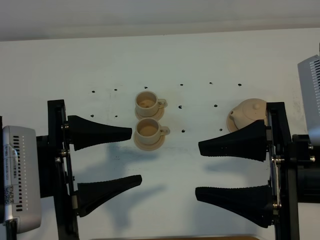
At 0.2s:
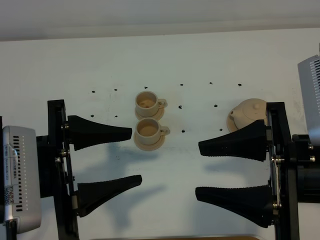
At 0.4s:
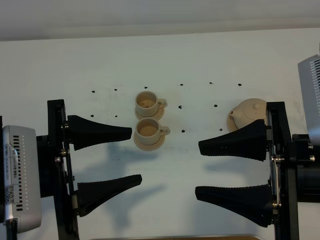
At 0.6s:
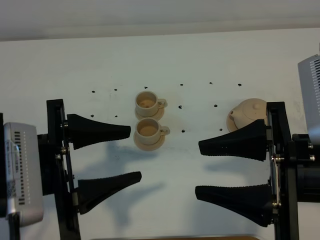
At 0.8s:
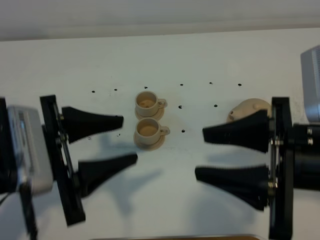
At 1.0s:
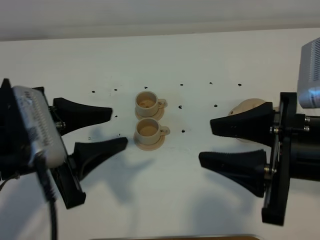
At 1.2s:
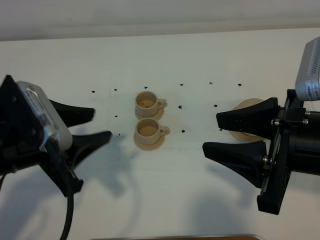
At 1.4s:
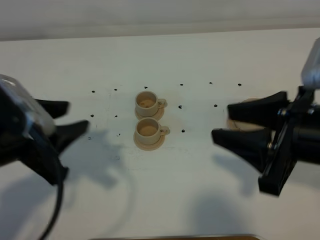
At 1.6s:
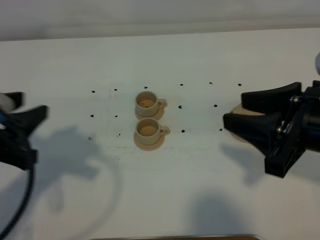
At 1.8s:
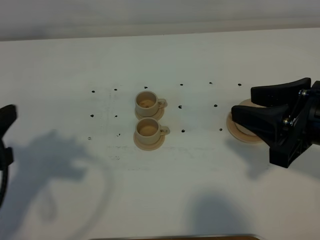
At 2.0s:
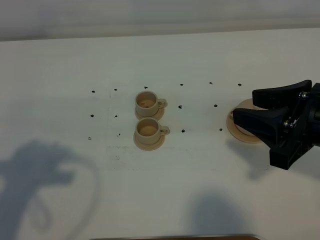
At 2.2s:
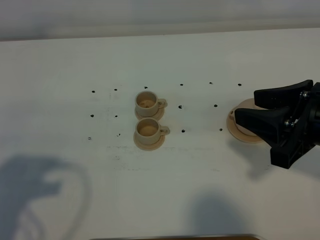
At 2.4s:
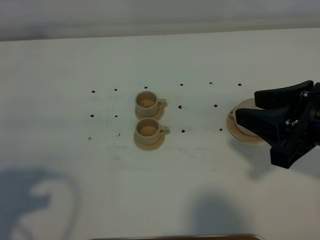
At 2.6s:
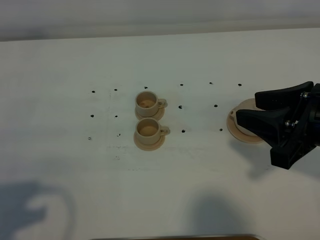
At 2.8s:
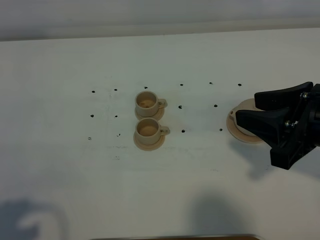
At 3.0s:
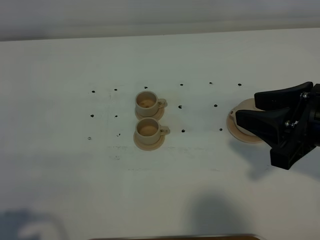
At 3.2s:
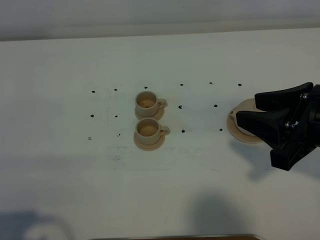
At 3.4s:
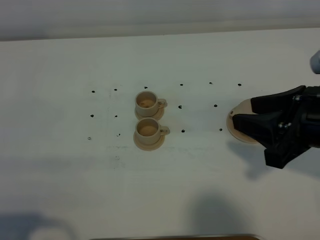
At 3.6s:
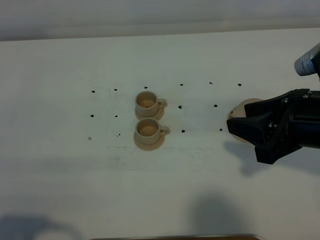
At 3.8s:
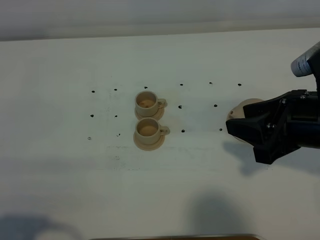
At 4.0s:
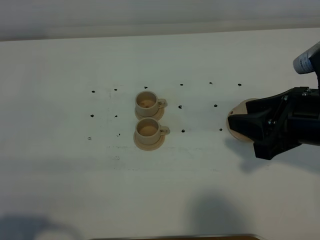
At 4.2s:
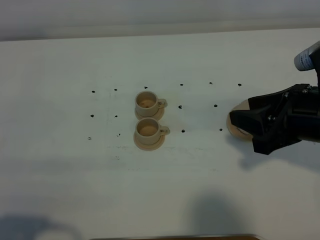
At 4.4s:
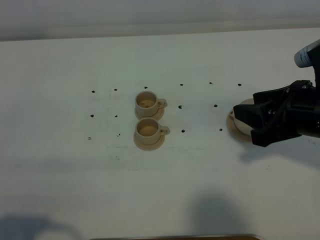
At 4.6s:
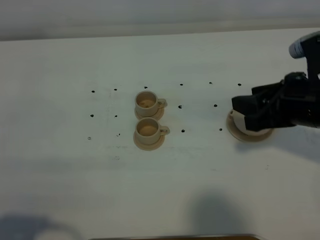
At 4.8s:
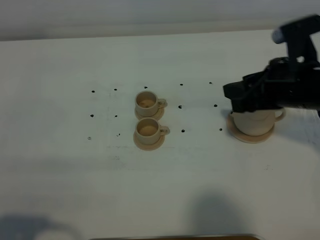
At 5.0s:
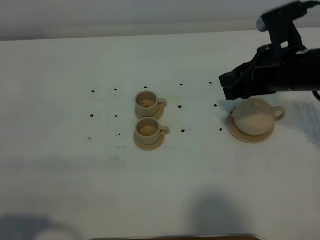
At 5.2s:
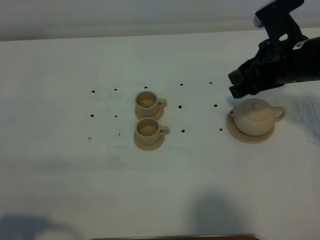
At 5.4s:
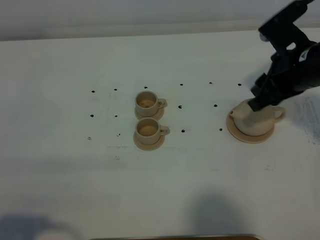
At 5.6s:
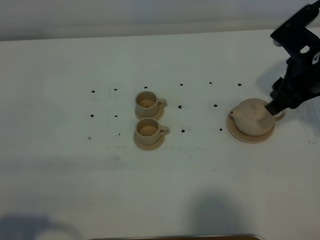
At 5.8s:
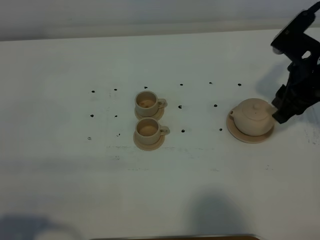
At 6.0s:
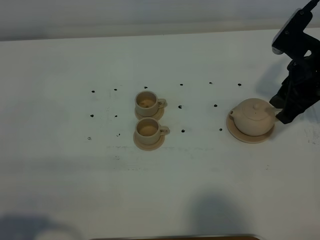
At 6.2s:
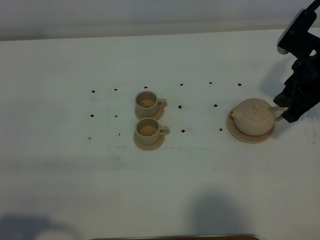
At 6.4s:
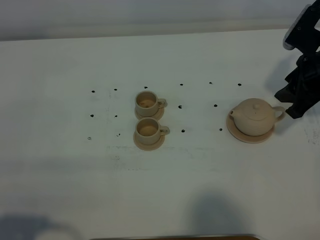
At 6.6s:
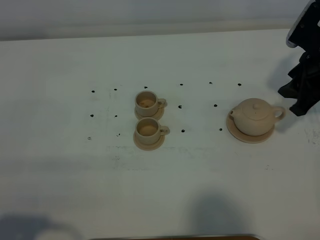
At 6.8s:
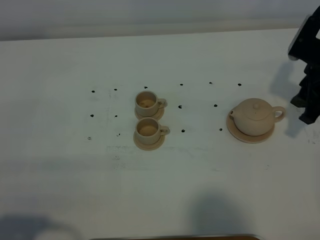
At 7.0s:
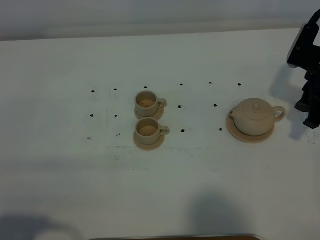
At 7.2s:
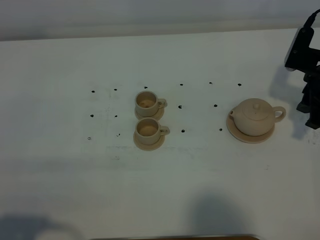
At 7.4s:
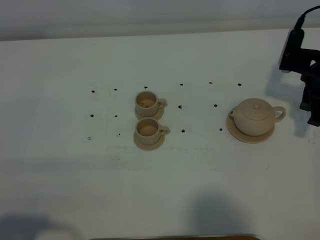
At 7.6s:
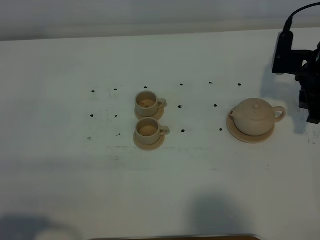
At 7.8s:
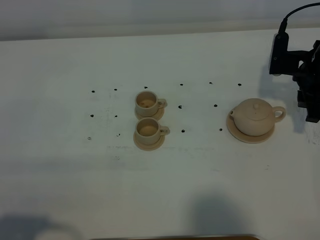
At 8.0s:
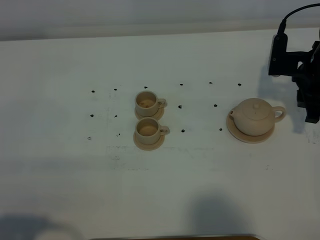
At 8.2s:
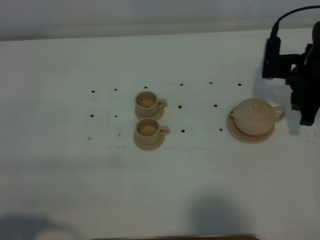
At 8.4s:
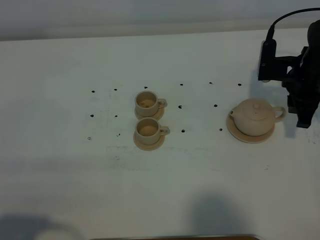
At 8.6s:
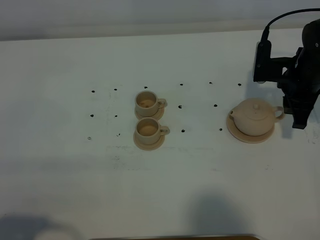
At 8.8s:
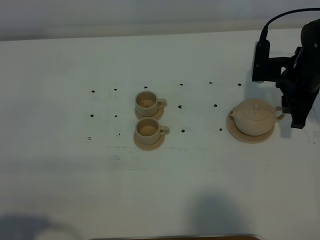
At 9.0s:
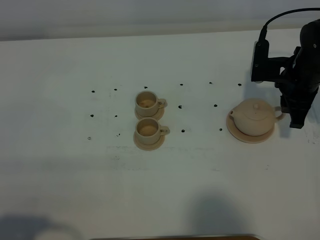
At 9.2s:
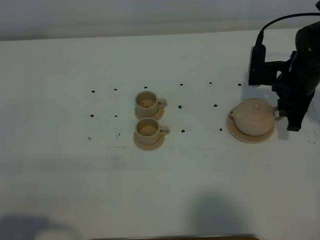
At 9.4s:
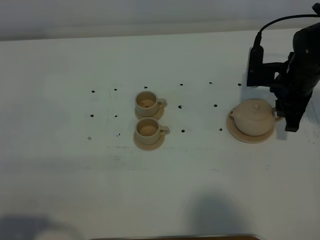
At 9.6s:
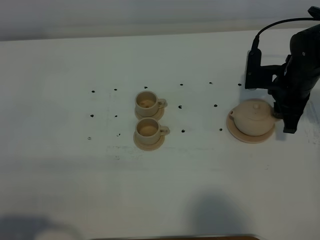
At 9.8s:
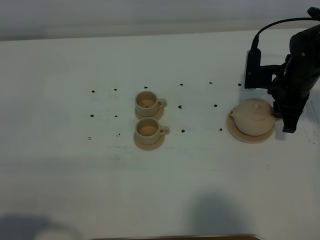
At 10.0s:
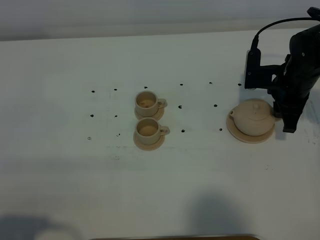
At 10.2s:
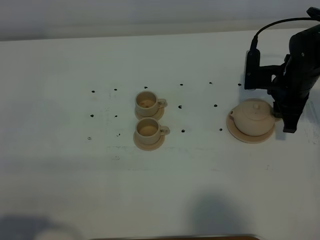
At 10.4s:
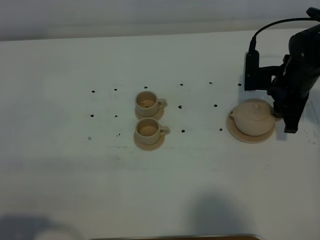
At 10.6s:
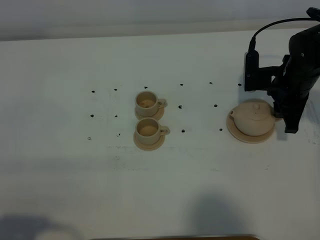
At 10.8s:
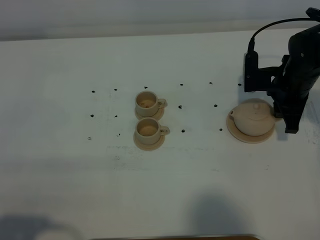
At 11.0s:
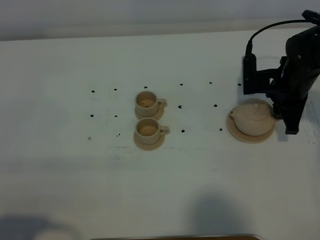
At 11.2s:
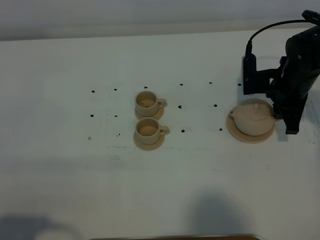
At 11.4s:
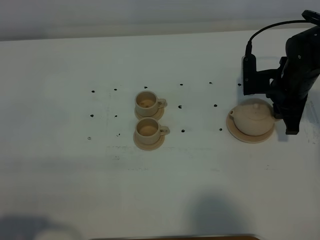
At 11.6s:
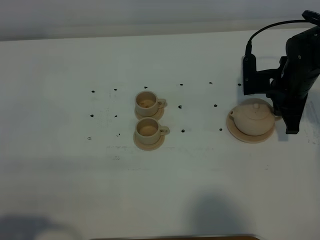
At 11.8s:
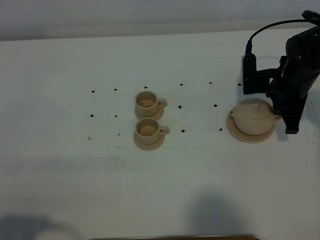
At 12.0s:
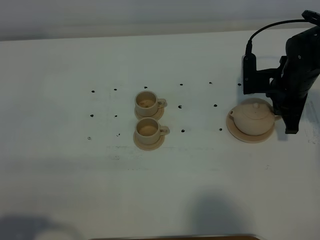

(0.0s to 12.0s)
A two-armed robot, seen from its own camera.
Task of the whole recording: grasp the brown teapot and pour the tea into the two brown teacups one by one, put the brown teapot back in its original place.
0.0s - 1.6s: The right gripper ends up about 5 cm from where it was; the left gripper shifts about 10 cm to the left.
1.6s - 3.0s: The left gripper moves backward, roughly 15 cm.
3.0s - 4.4s: The right gripper moves approximately 5 cm.
4.4s - 6.0s: The right gripper shifts approximately 10 cm forward.
6.0s - 7.6s: The right gripper goes approximately 5 cm forward and downward.
7.6s - 10.4s: The grippers make only small movements.
10.4s - 12.0s: The right gripper closes its fingers.

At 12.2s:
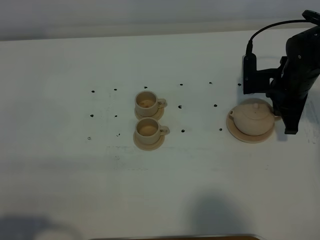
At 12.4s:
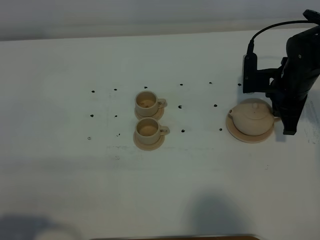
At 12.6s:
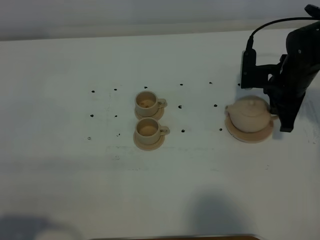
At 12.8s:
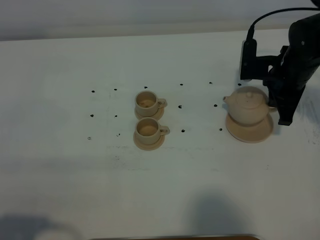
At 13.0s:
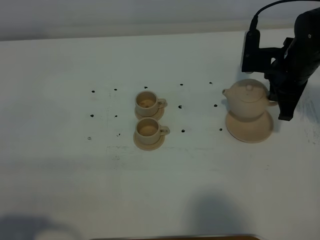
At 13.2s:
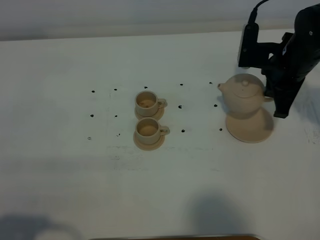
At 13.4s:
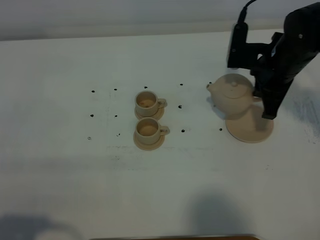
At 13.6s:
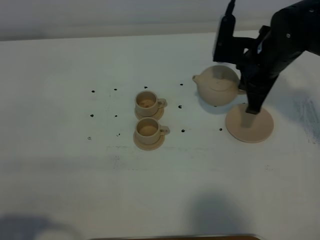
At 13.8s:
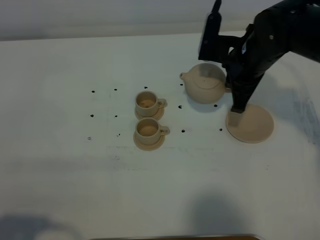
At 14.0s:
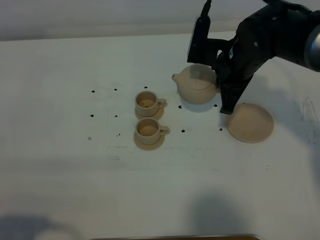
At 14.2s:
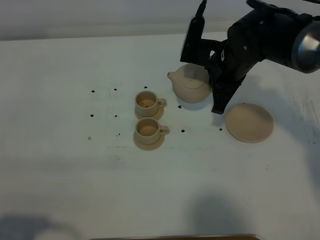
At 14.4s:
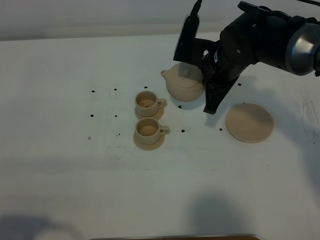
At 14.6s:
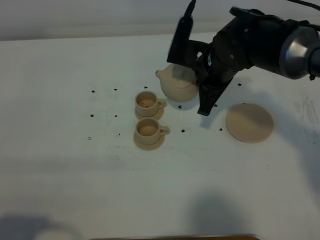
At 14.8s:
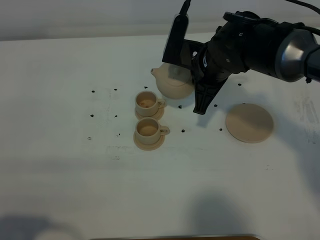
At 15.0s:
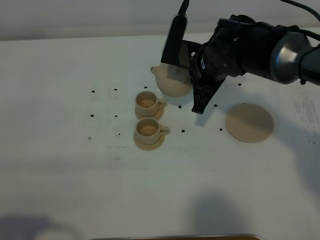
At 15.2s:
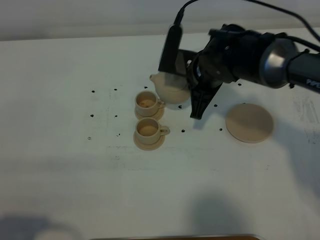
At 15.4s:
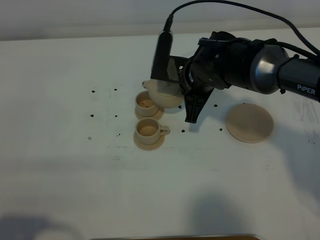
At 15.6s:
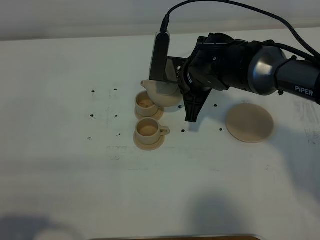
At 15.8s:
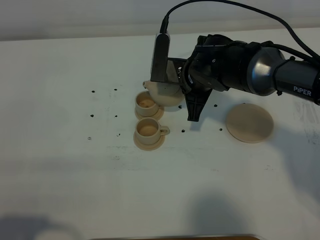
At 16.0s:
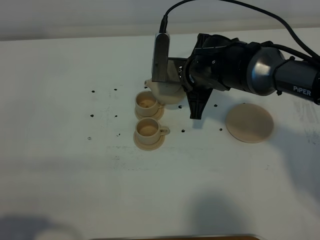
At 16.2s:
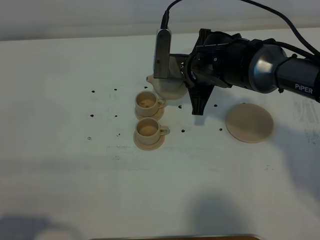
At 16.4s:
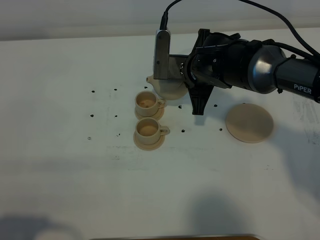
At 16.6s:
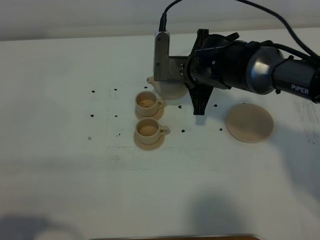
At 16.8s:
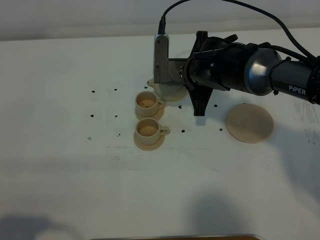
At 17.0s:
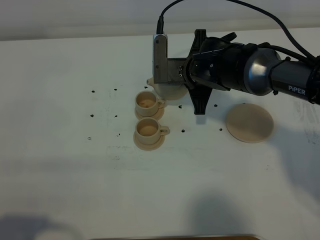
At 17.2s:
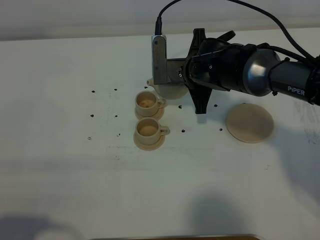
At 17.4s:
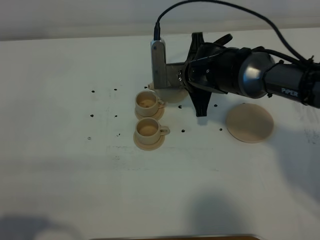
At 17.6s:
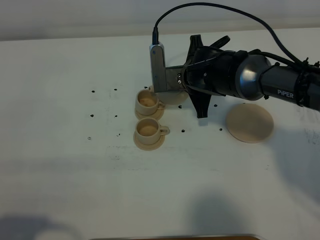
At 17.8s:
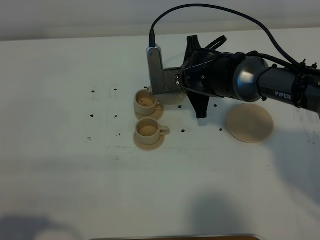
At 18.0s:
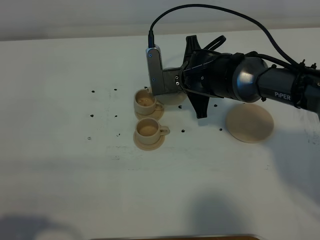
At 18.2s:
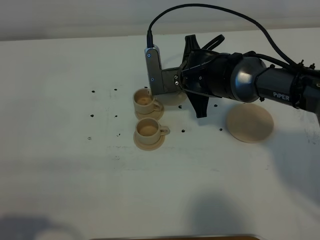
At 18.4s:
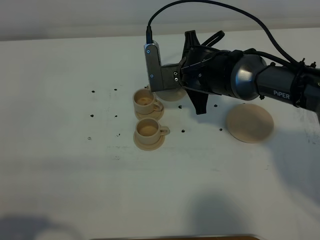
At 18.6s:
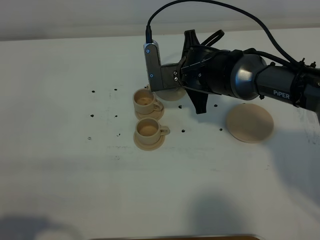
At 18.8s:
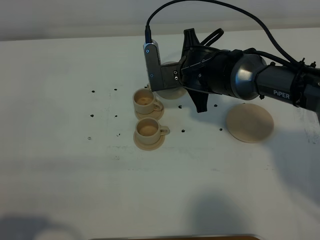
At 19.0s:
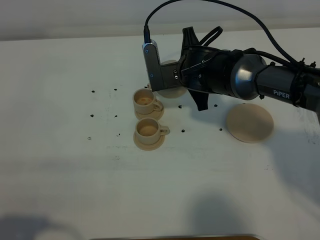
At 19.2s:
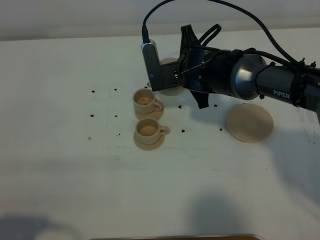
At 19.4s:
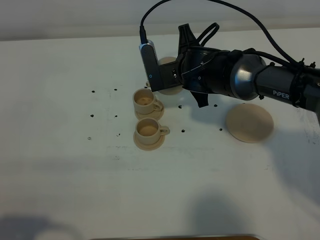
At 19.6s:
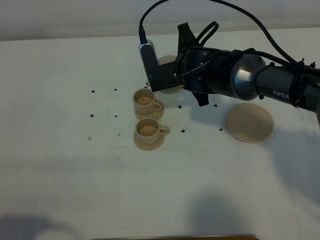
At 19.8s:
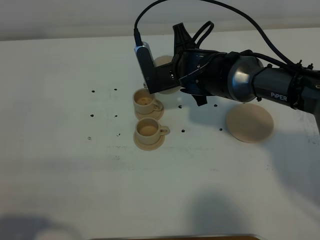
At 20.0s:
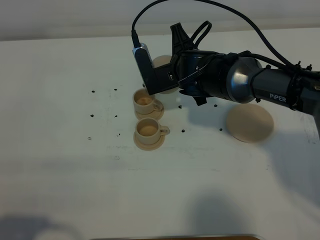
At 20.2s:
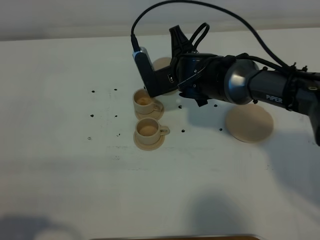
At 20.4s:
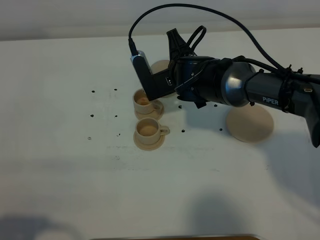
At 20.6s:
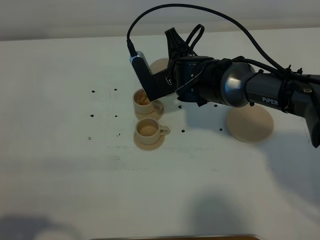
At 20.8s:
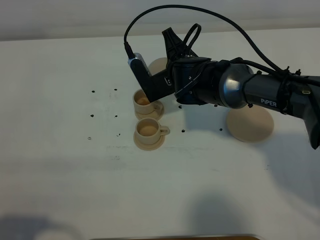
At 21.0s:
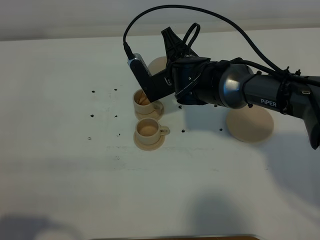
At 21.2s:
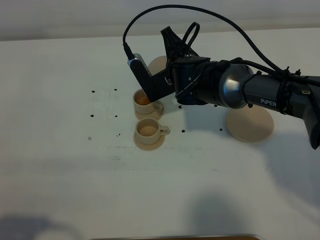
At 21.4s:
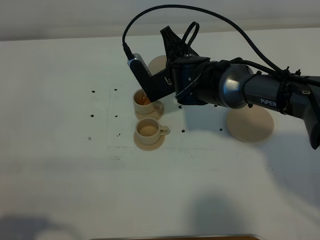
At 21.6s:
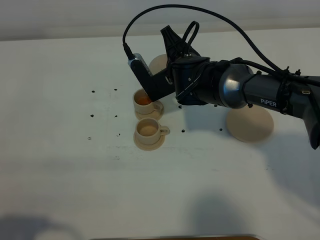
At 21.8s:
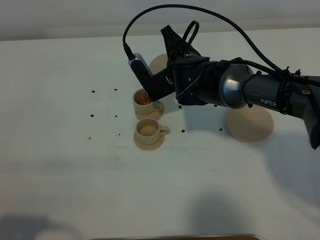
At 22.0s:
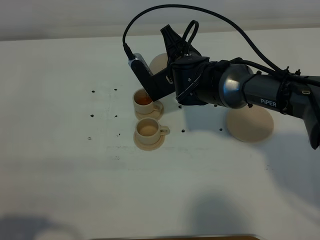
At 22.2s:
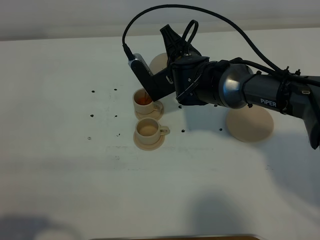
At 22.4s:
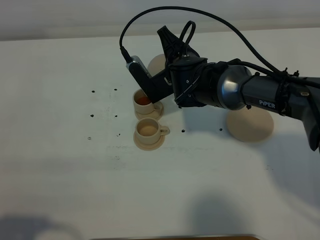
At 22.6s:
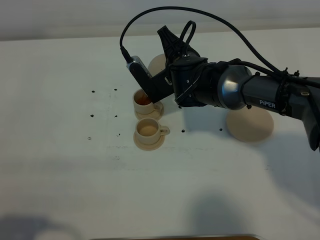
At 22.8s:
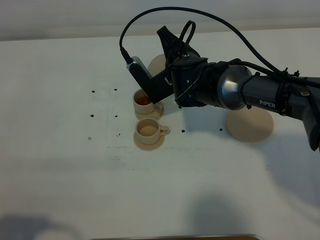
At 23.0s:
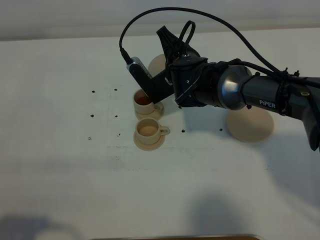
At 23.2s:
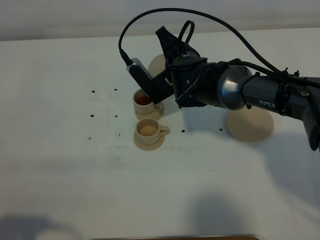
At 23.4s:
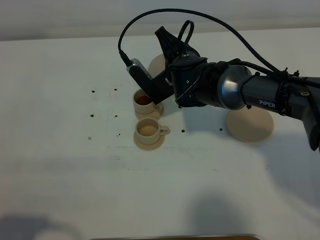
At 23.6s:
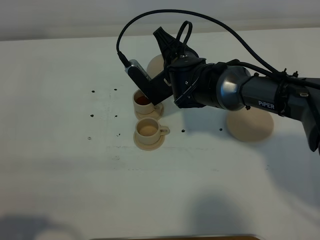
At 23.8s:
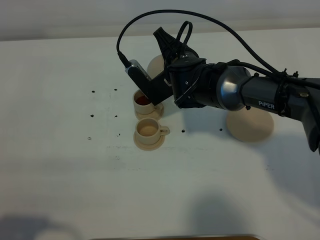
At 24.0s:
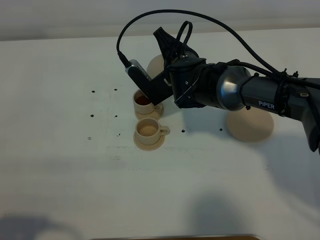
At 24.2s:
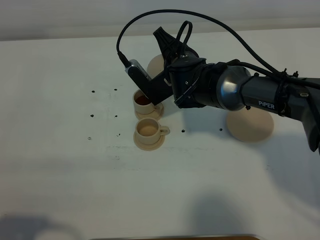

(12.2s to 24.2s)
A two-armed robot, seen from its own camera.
Task of the whole recording: grasp the brown teapot and pour the tea into the two brown teacups one by one, put the brown teapot back in its original place.
12.2s - 13.8s: The right gripper goes roughly 10 cm to the left and upward.
13.8s - 15.2s: The right gripper goes some 5 cm to the left.
15.2s - 16.6s: The grippers stay close to where they were, moving slightly.
16.6s - 18.2s: There are only small adjustments of the grippers.
18.2s - 19.8s: There are only small adjustments of the grippers.
19.8s - 22.6s: There are only small adjustments of the grippers.
22.6s - 24.2s: Both grippers stay about where they are.
